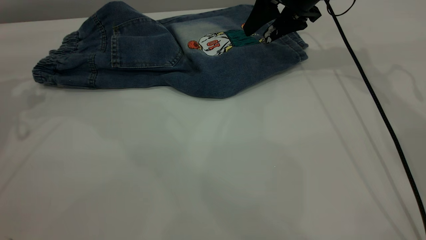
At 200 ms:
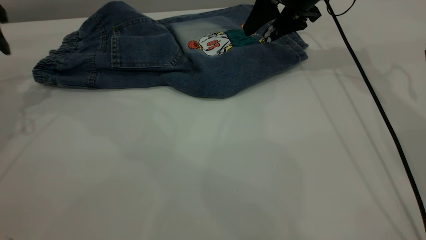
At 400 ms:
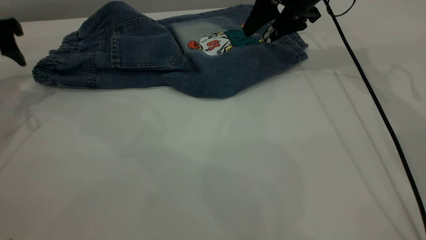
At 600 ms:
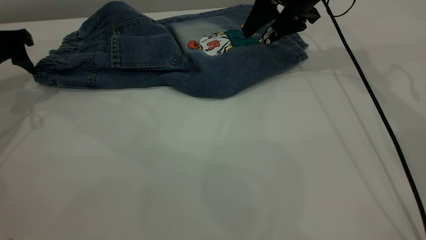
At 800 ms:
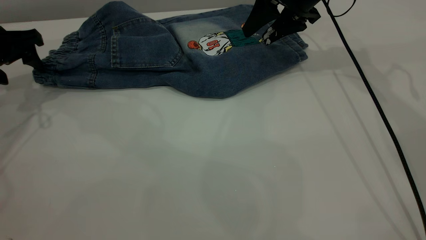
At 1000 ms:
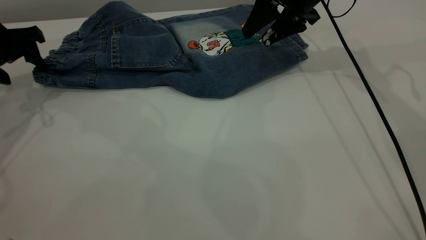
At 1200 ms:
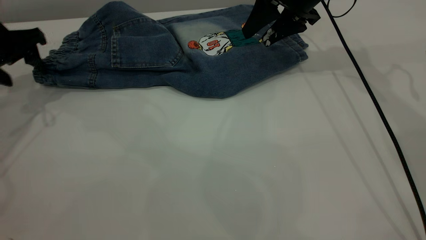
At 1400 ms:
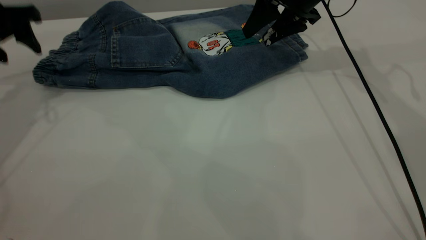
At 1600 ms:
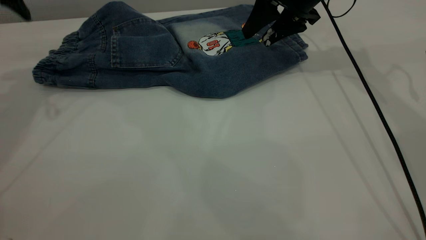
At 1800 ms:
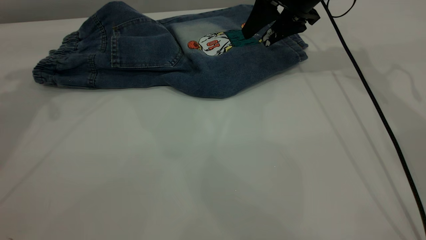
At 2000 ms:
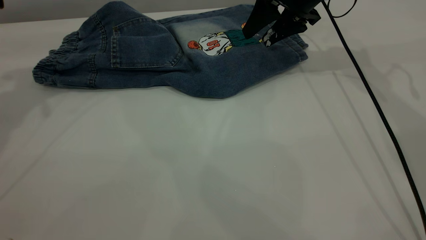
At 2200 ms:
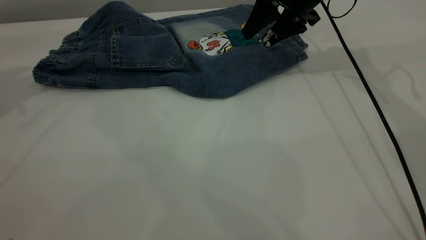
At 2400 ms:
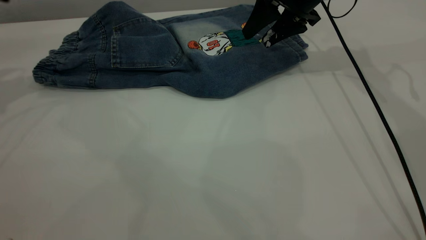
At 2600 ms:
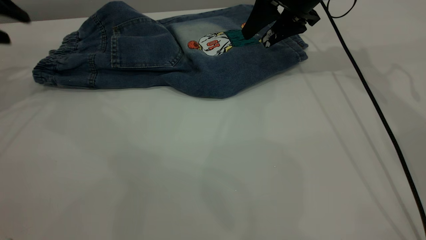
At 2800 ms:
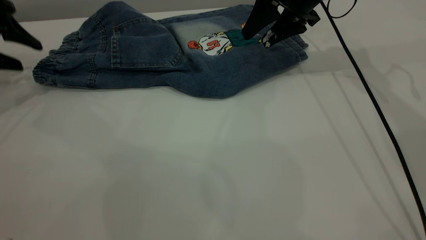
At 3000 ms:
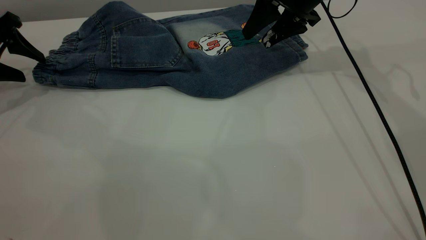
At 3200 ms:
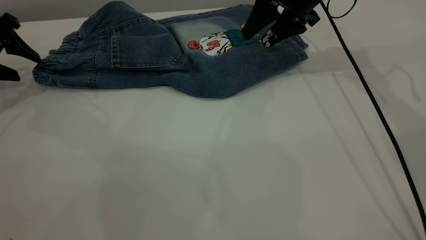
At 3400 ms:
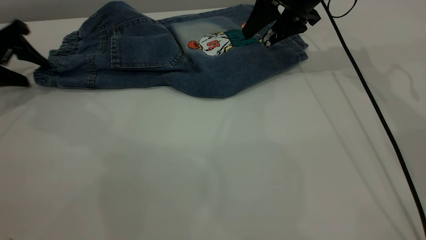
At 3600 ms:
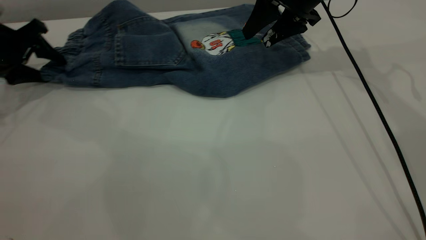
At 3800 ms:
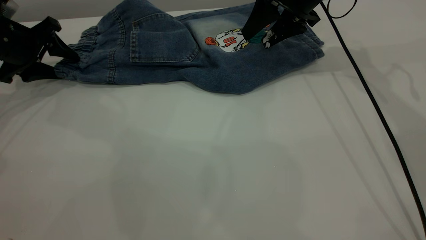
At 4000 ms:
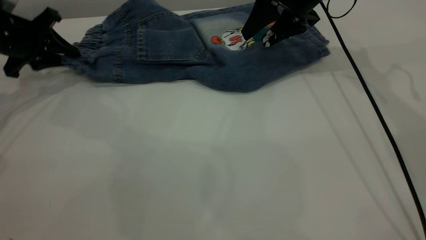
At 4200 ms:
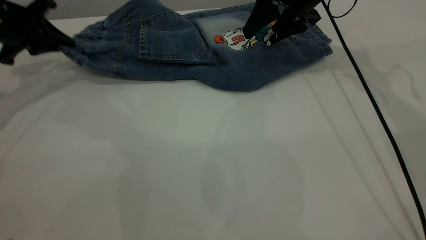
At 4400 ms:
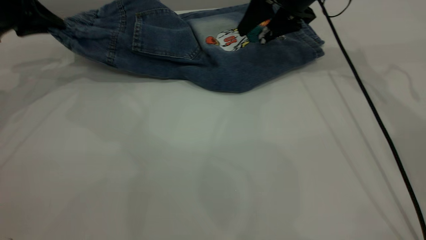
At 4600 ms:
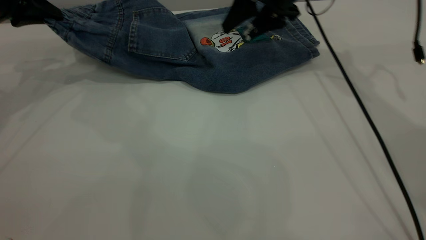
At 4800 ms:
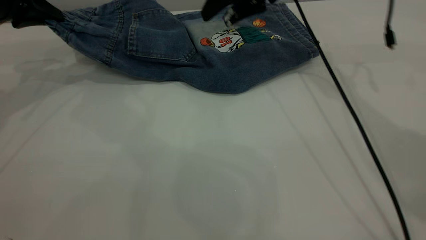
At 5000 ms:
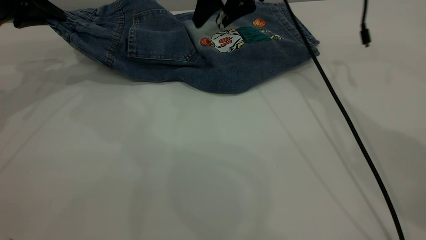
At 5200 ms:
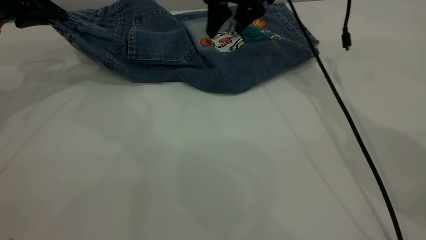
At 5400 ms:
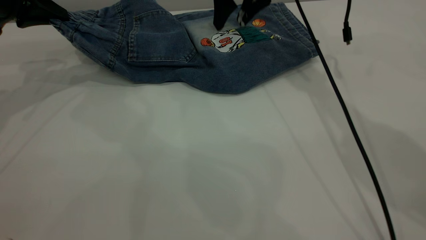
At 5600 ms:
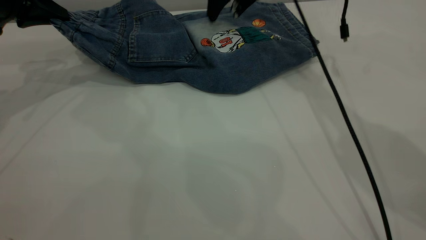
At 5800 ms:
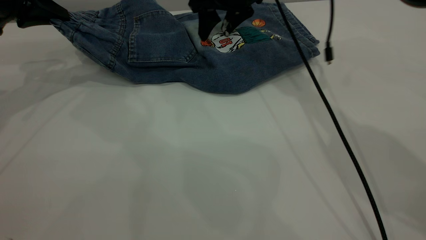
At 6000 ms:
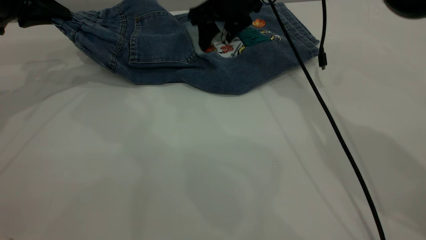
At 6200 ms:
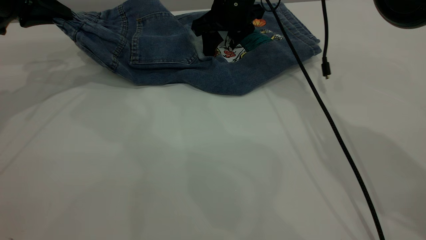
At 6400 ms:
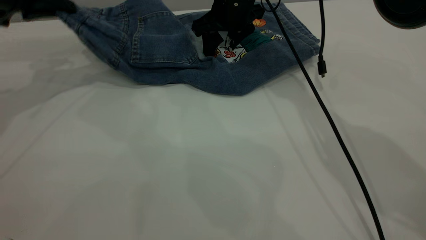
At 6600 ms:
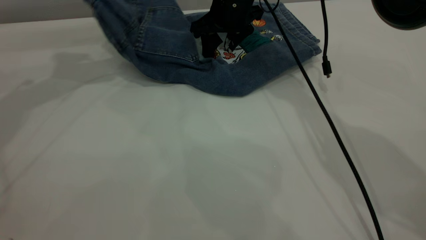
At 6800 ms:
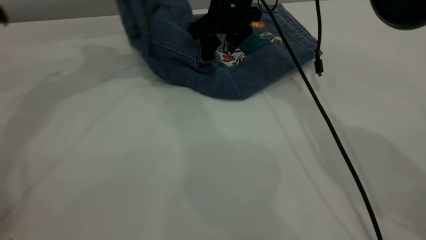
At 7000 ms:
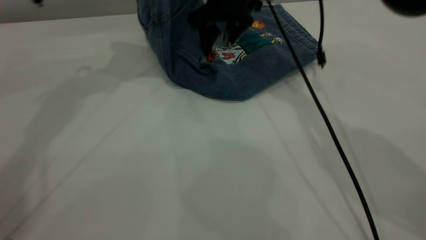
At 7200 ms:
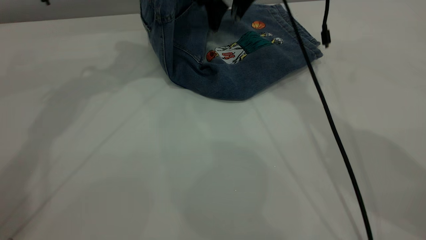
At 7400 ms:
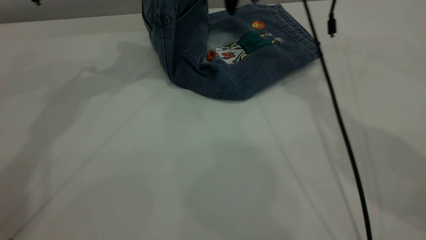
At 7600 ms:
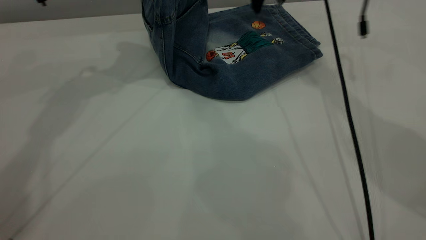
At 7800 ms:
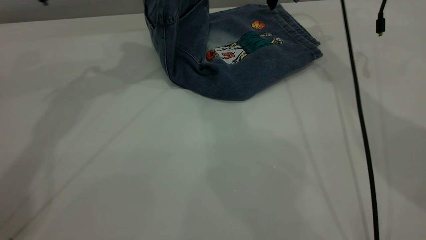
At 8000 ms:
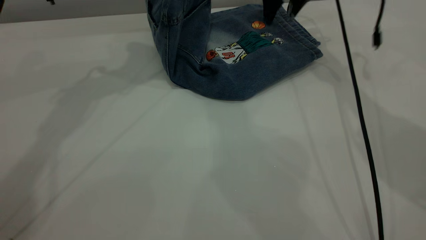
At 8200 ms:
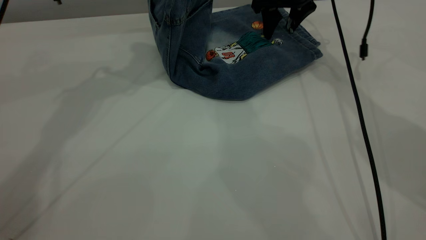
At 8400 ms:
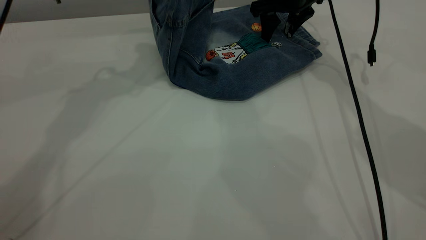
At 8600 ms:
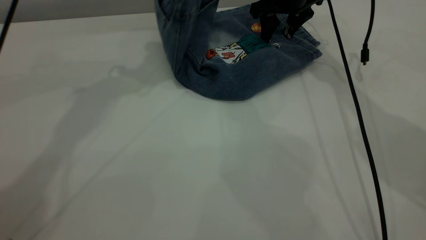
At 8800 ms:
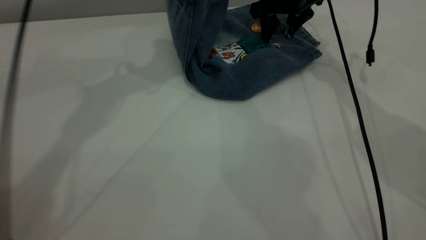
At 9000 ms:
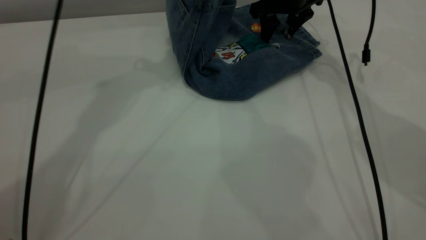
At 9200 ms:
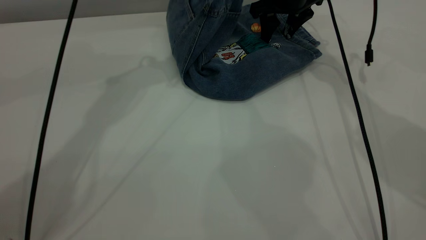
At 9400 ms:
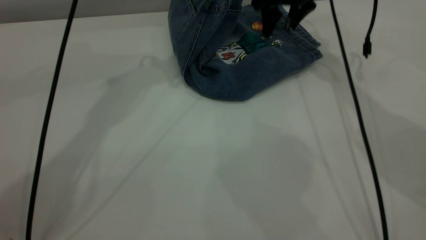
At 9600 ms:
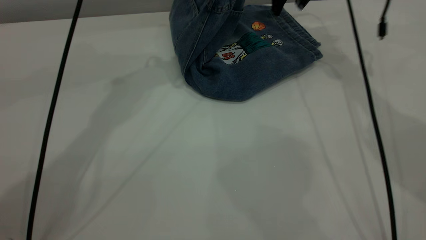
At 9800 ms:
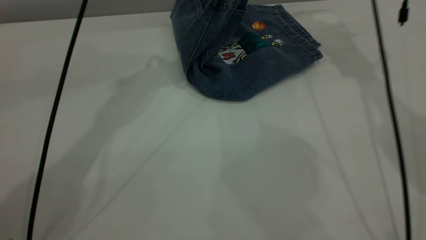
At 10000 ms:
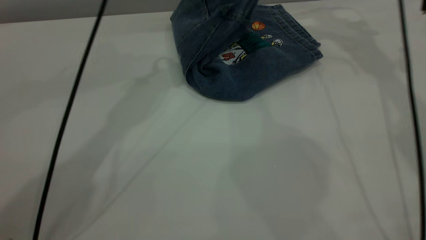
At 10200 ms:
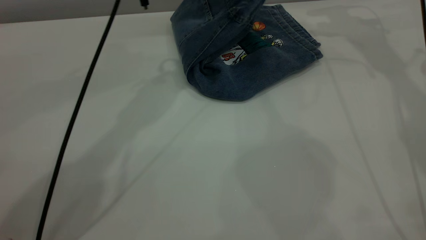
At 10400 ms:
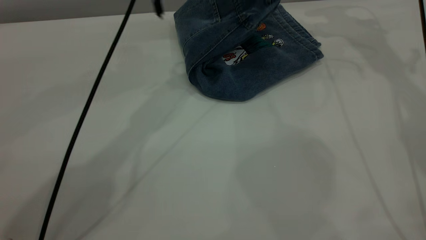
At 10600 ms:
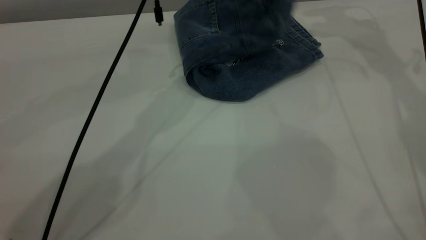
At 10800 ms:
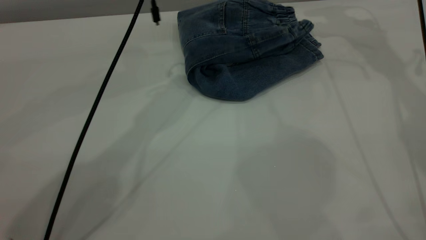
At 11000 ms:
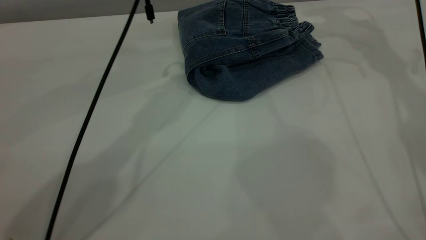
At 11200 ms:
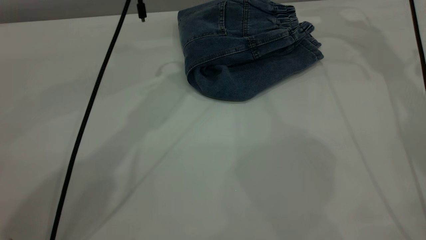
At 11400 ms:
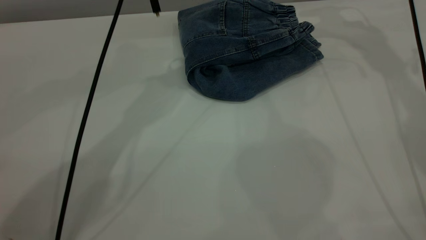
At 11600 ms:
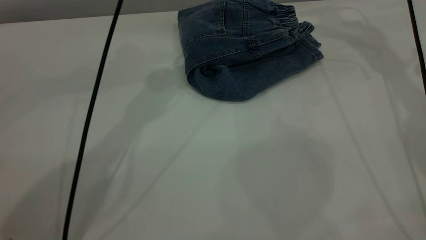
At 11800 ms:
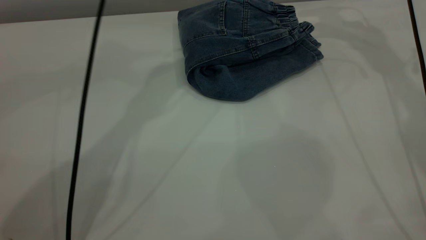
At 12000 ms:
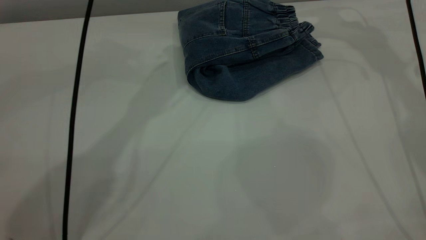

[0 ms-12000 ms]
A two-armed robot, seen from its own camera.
Step, 0 ms to 11200 ms: Fold the pants from left to right.
1600 ms to 3000 ms: The left gripper heads downward and to the left, covering approximately 15 cm.
3000 ms to 4400 ms: The left gripper moves about 5 cm, and closes.
4400 ms to 6000 ms: The right gripper is displaced to the left by roughly 10 cm.
6000 ms to 7600 ms: The right gripper goes about 10 cm to the right and upward; the left gripper heads to the right and upward, covering about 15 cm.
7600 ms to 9000 ms: The left gripper heads to the right, covering roughly 10 cm; the right gripper moves downward, roughly 5 cm.
9000 ms to 10400 ms: The left gripper moves to the right and downward, some 10 cm, while the right gripper is displaced upward and to the right by roughly 15 cm.
10400 ms to 12000 ms: The left gripper shifts some 5 cm to the left, and opens up.

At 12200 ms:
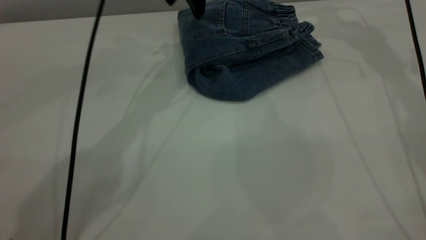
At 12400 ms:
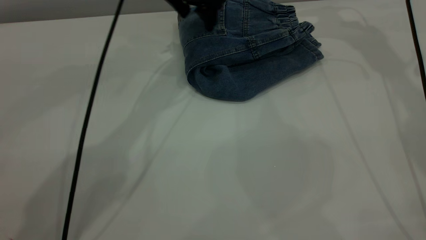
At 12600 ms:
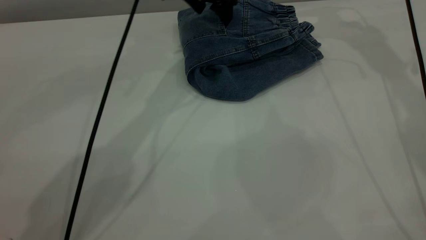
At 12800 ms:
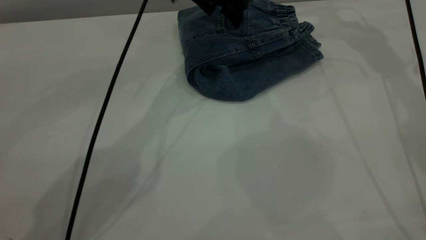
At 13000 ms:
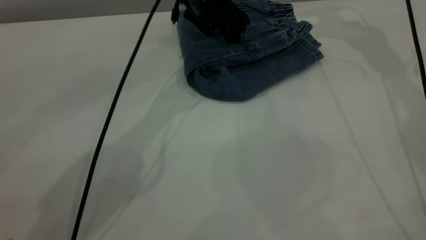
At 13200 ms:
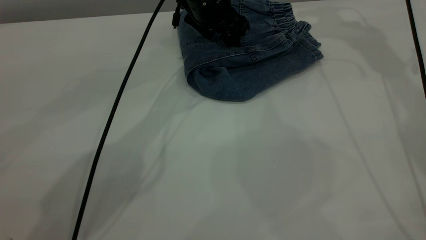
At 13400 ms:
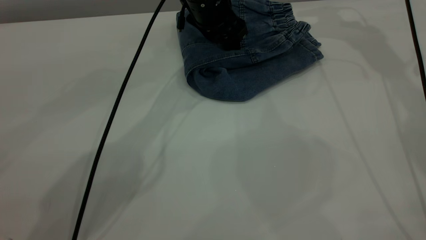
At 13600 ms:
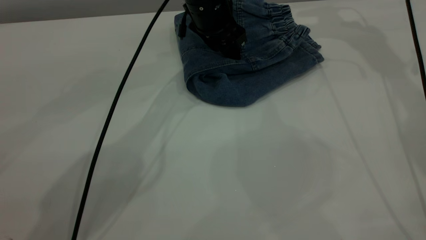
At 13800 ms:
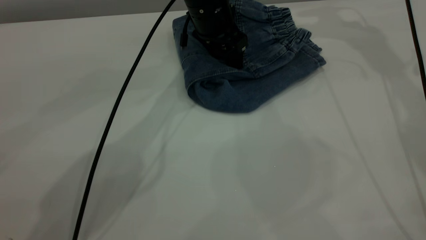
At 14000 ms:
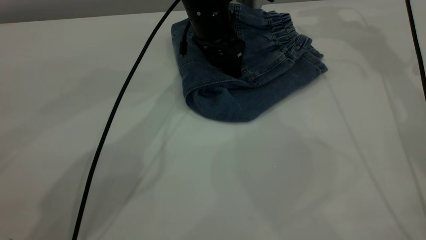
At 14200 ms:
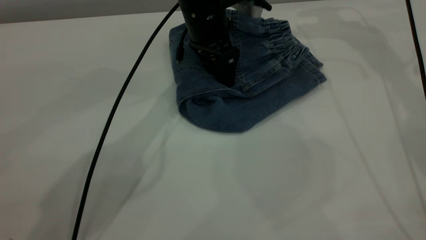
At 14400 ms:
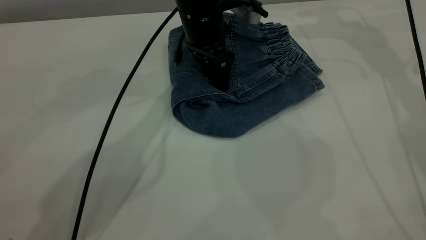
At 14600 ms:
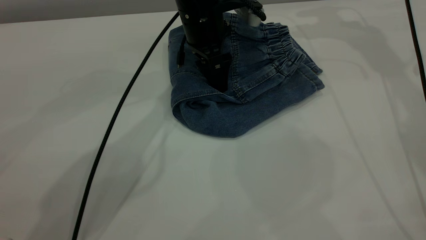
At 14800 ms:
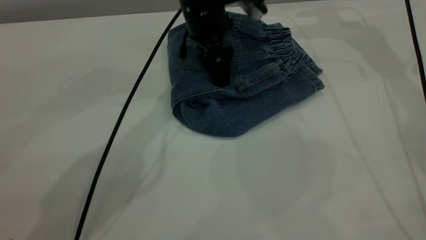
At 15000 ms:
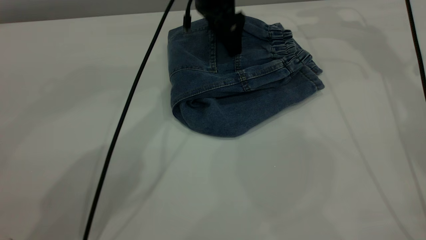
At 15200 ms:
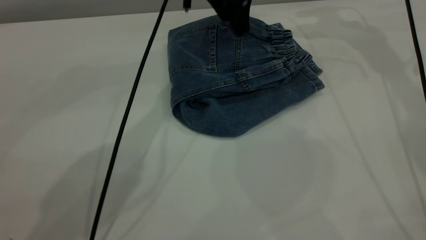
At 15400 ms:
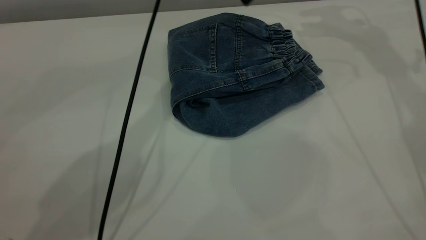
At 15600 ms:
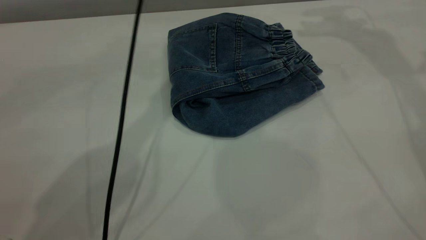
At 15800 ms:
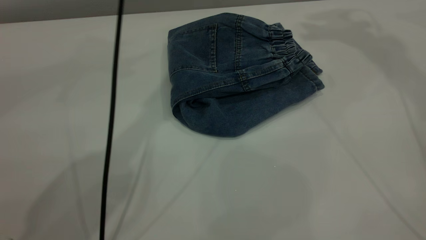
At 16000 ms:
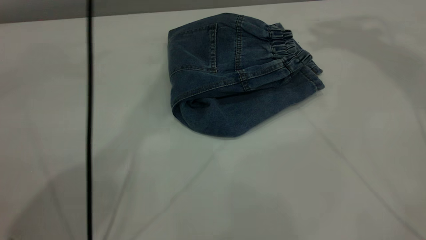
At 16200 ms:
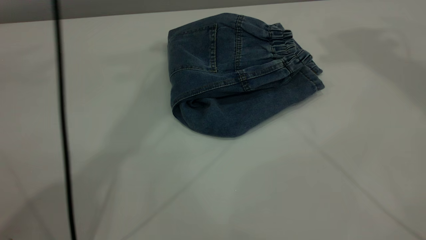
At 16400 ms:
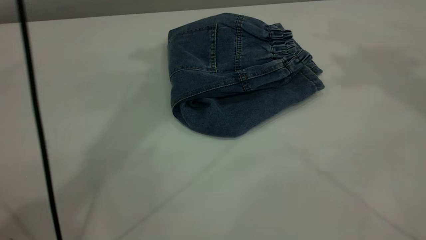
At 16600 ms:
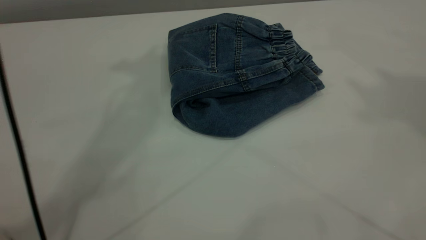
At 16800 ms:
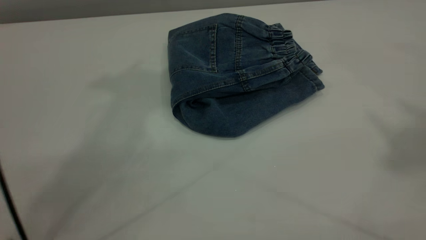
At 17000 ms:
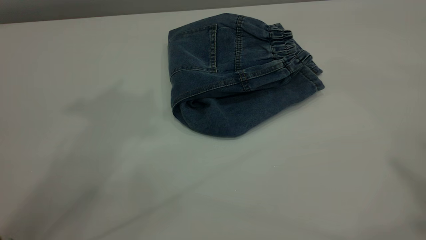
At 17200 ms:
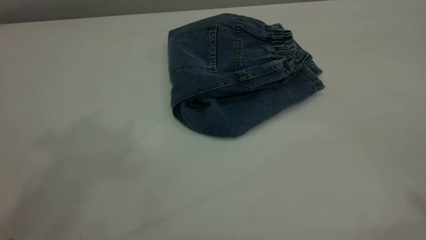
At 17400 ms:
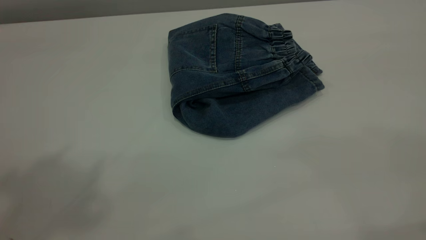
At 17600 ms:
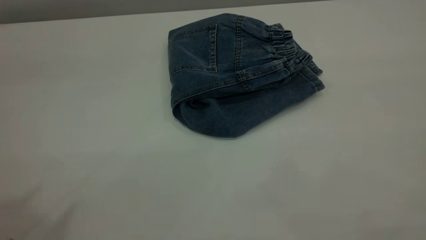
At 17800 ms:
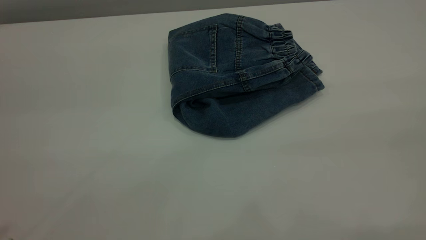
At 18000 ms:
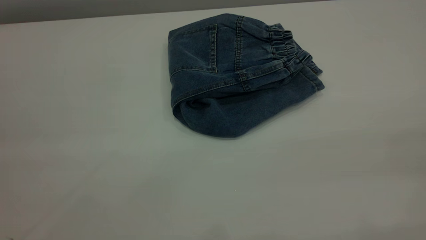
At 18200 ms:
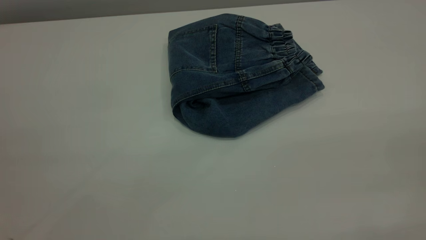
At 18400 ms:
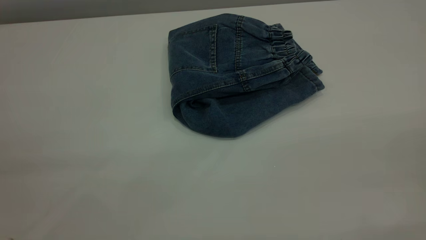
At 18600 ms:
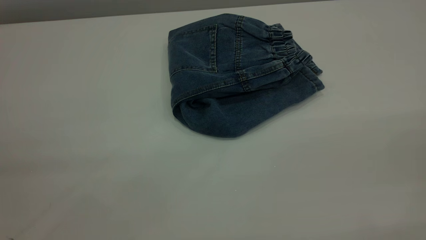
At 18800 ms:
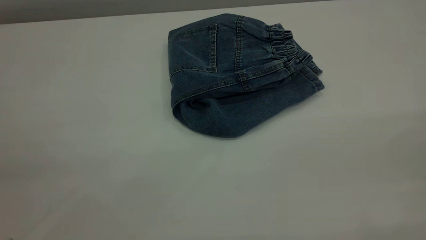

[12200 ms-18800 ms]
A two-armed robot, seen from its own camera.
12200 ms to 13800 ms: The left gripper moves downward, approximately 5 cm.
13800 ms to 15400 ms: The left gripper is displaced upward by roughly 10 cm.
15400 ms to 17200 ms: The left gripper travels upward, backward and to the left by approximately 40 cm. Meanwhile the right gripper shifts approximately 50 cm backward and upward.
